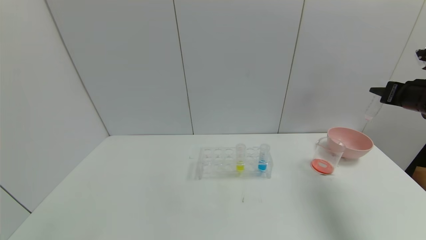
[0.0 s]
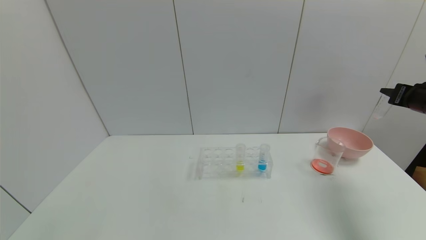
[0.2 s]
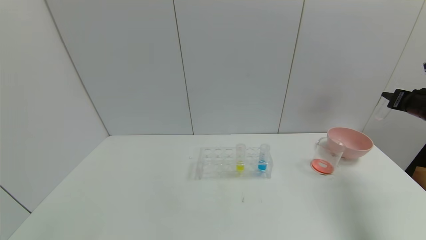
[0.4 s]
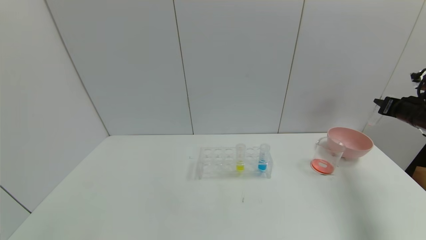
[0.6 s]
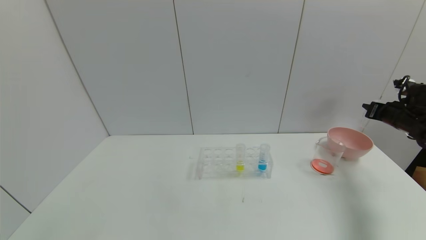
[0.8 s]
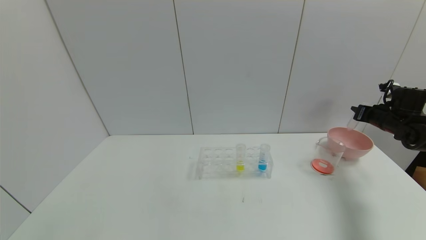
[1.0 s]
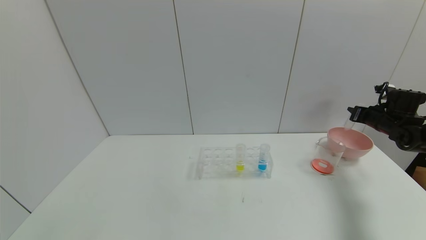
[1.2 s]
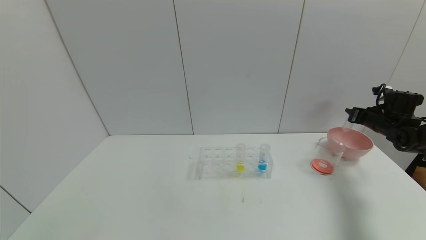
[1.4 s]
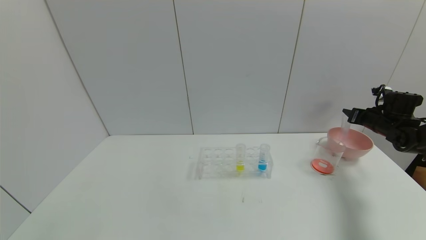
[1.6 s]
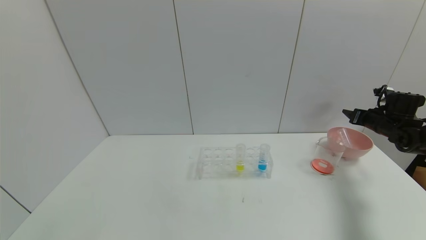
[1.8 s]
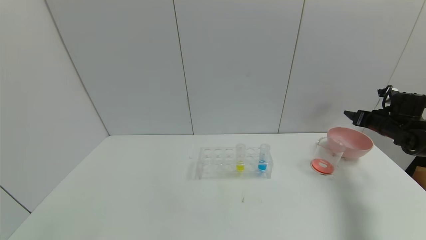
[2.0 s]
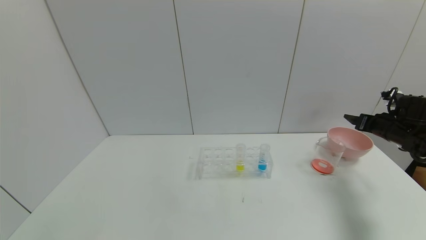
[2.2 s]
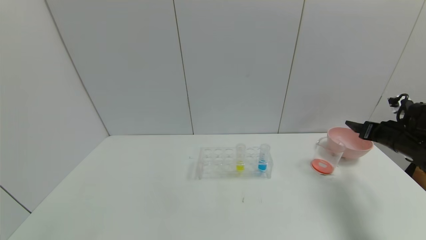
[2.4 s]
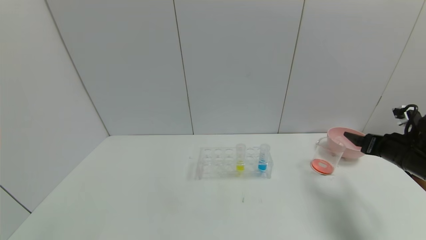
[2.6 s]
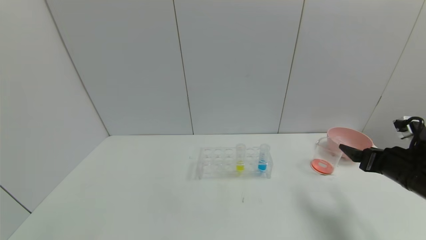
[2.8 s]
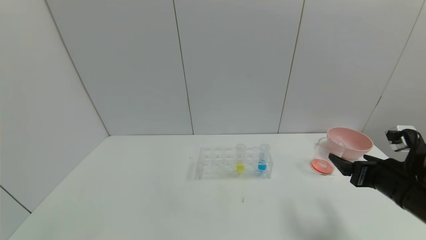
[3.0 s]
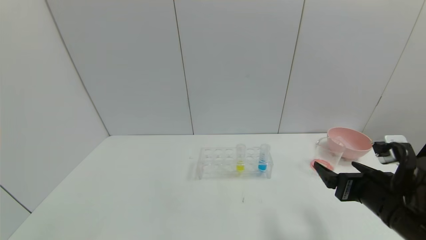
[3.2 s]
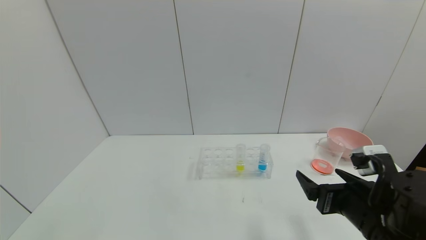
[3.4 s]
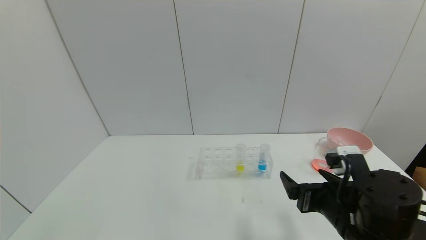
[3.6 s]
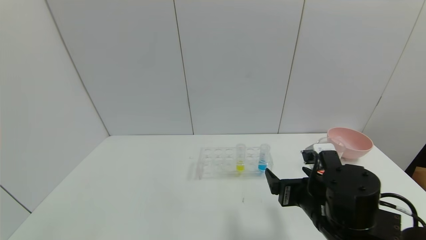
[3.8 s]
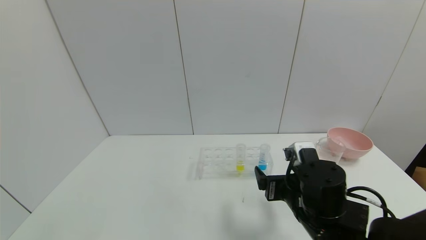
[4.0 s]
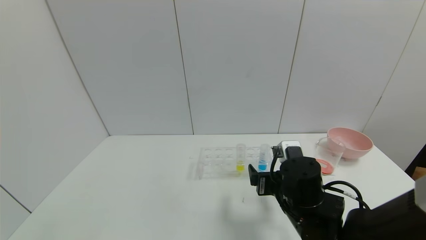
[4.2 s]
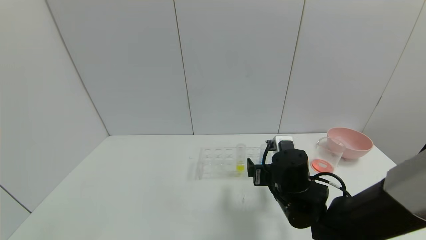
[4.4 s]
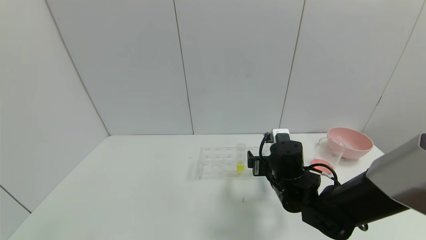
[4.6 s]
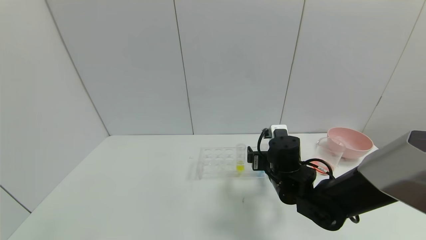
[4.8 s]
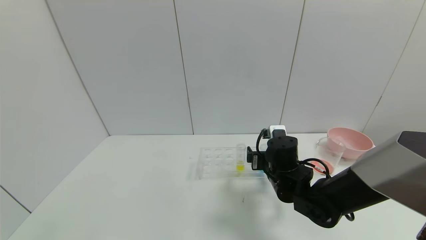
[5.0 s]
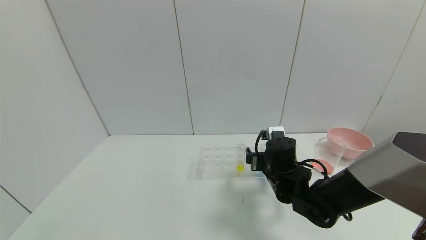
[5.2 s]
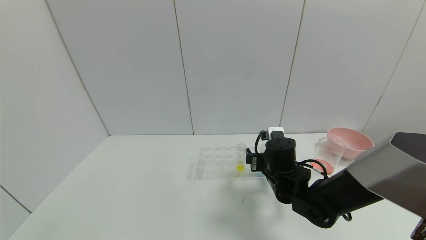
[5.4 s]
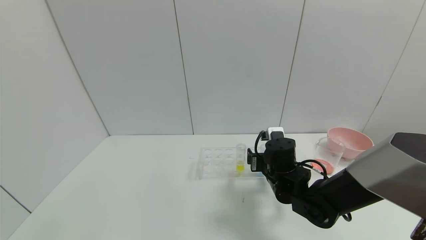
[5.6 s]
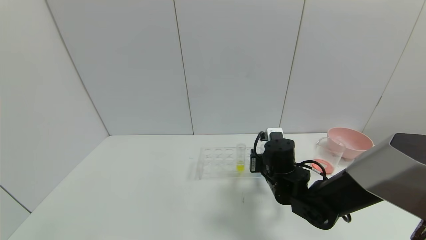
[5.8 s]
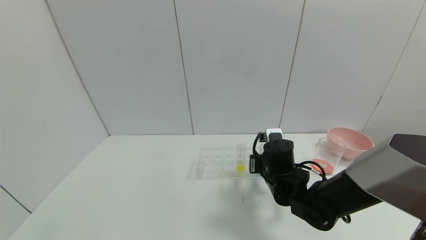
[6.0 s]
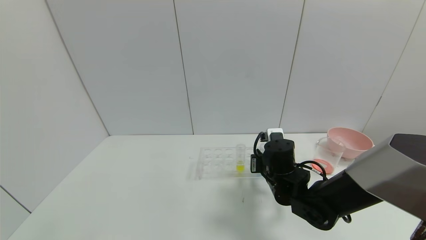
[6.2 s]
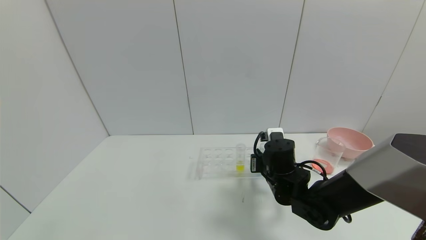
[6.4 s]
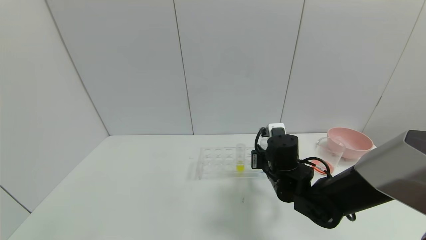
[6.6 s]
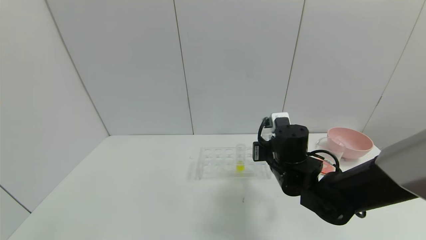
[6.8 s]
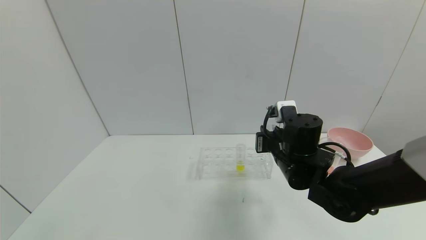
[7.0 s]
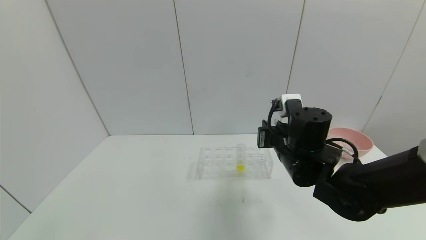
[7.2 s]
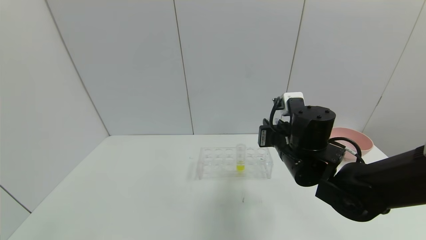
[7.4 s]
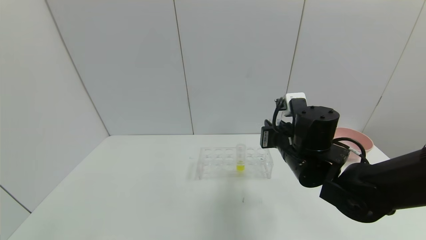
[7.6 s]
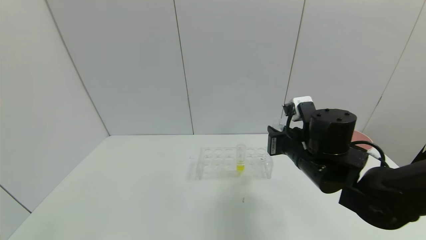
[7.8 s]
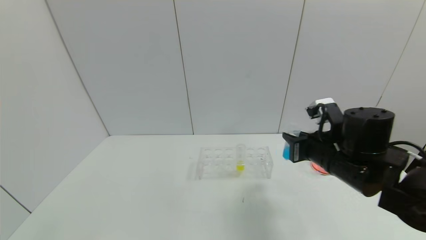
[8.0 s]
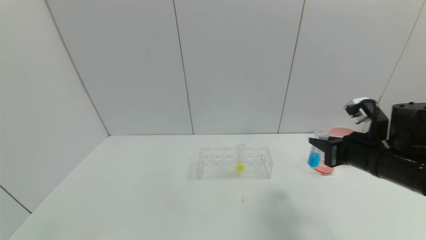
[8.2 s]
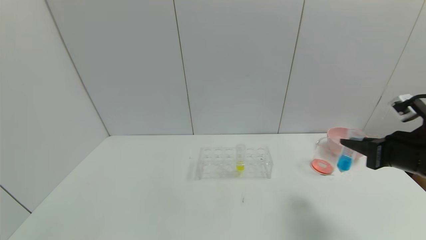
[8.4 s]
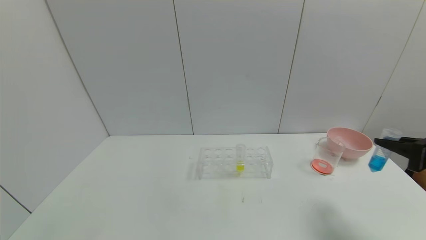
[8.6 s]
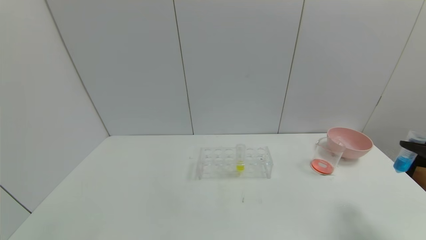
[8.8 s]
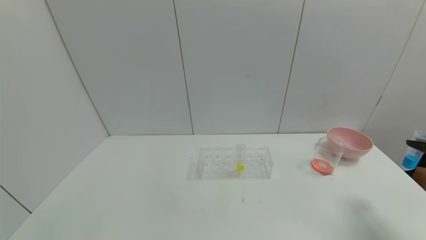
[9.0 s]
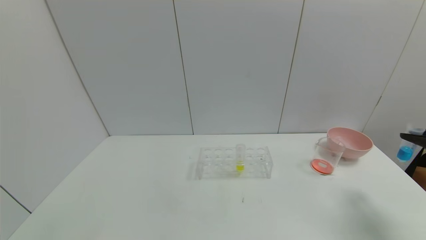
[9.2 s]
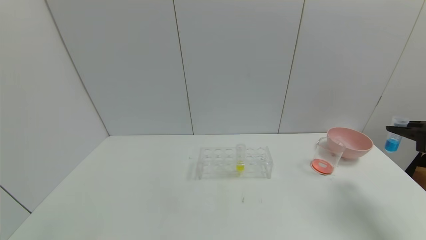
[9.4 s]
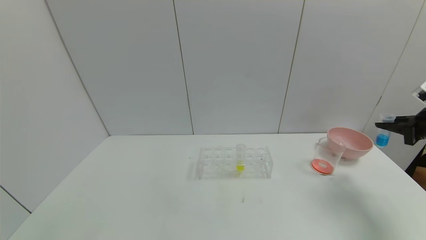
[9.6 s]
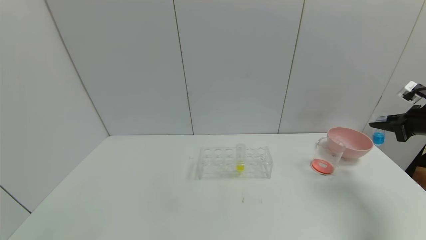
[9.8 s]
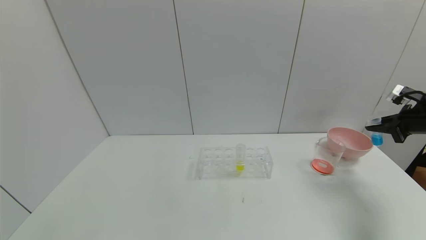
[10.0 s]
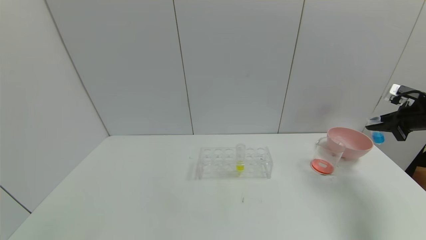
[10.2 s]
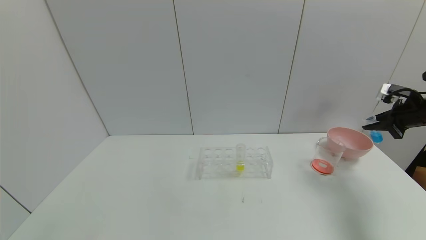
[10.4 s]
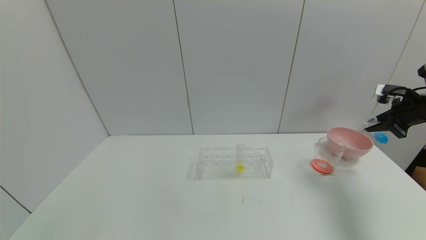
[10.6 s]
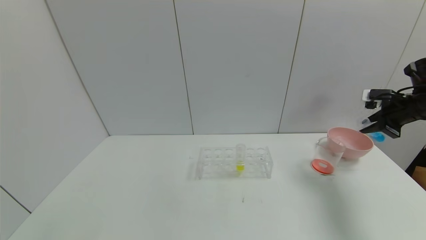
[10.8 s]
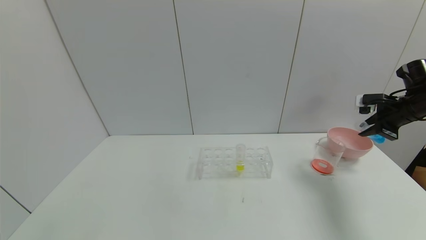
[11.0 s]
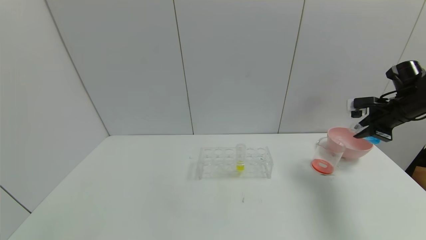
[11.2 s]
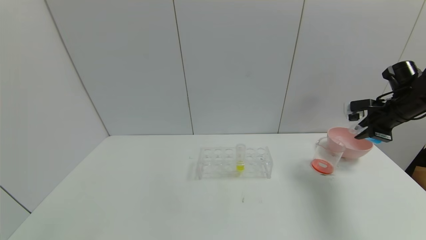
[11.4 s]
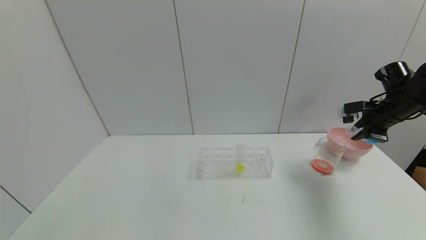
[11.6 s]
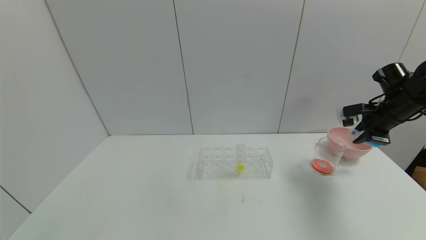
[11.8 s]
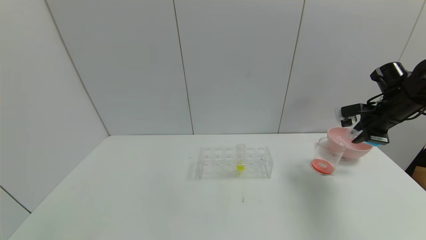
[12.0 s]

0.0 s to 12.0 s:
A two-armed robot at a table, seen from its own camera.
Task of the whole recording: pick up the test tube with red pigment and the test tube with blue pigment by grippers and pour them into the container.
Step, 0.0 to 2.2 s: Place the test tube into the bowl with the right gripper.
Step, 2.4 to 6.4 s: Grasp the blue reagent with the right gripper.
0.0 to 1.6 s: The right gripper is displaced downward and forward by about 15 cm, and opens.
1.6 to 3.0 s: The right gripper goes some 30 cm backward and to the left, and opens its fingers.
3.0 to 4.4 s: The right gripper shifts some 20 cm to the left.
4.4 to 6.0 s: The right gripper moves roughly 5 cm, and closes.
6.0 to 7.6 s: The right gripper goes approximately 10 cm upward.
7.6 to 9.0 s: The right gripper is displaced to the right by about 35 cm.
9.0 to 10.4 s: The right gripper heads forward, covering some 15 cm.
10.4 to 12.0 s: The right gripper shifts roughly 10 cm to the left.

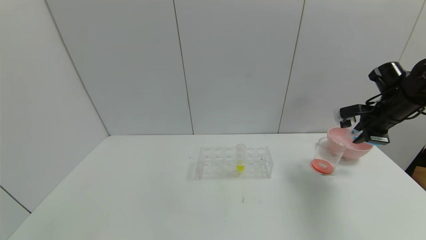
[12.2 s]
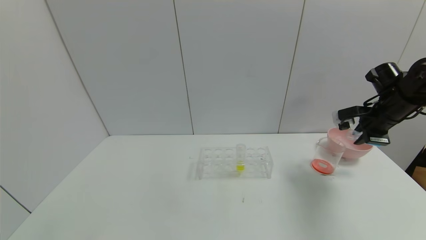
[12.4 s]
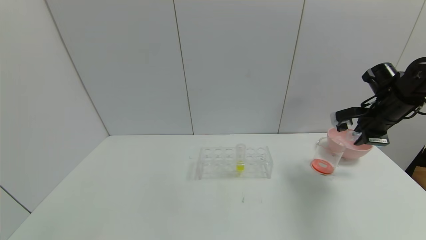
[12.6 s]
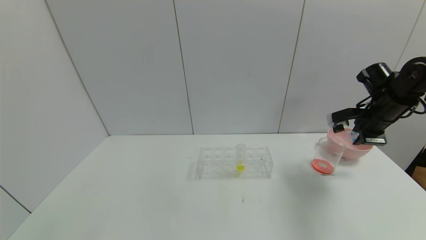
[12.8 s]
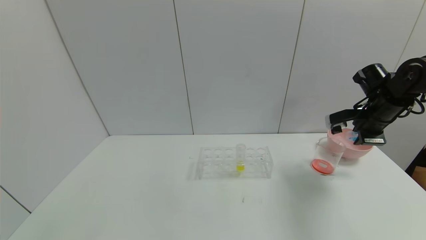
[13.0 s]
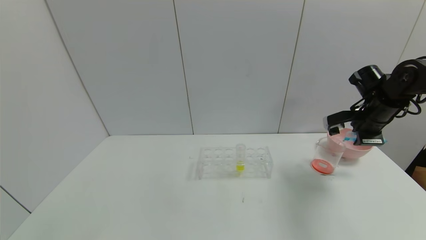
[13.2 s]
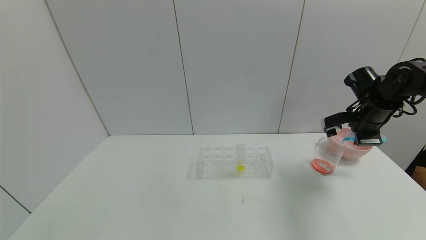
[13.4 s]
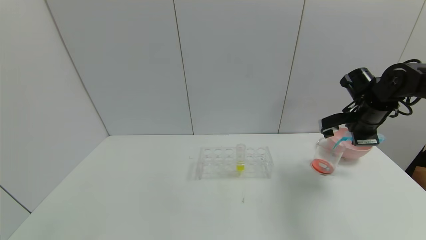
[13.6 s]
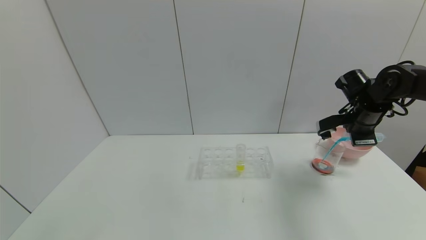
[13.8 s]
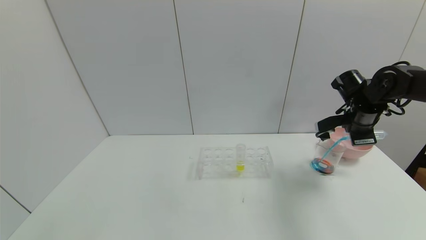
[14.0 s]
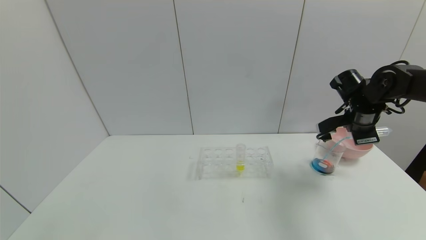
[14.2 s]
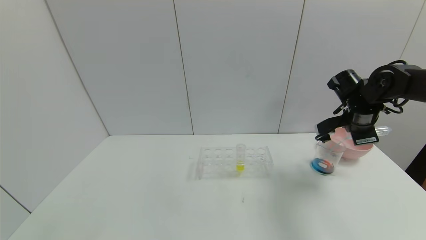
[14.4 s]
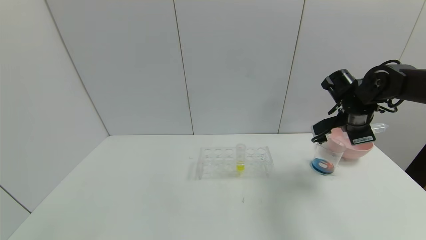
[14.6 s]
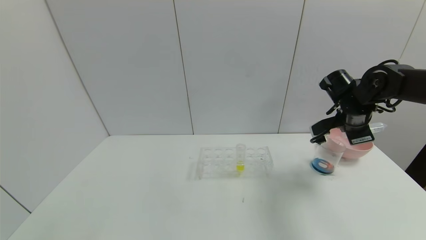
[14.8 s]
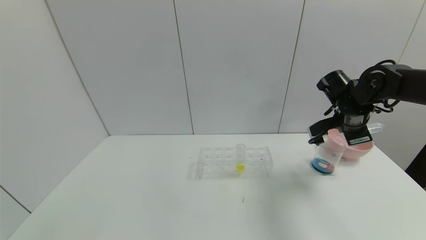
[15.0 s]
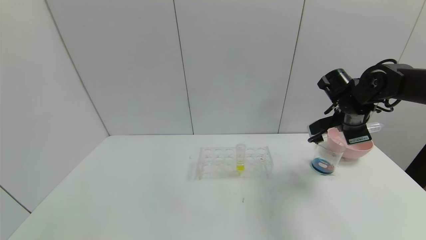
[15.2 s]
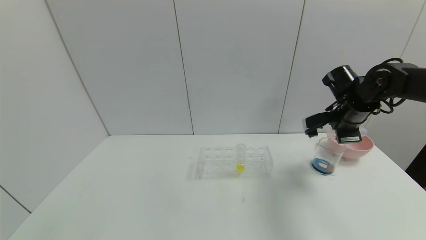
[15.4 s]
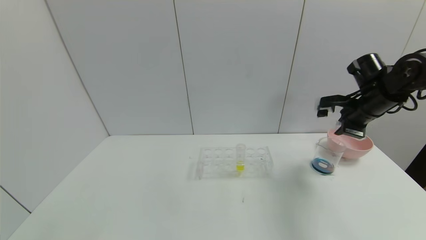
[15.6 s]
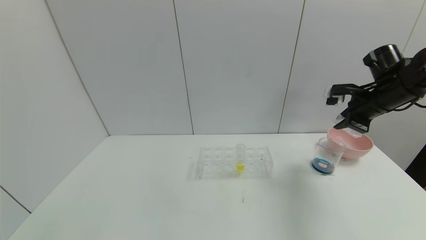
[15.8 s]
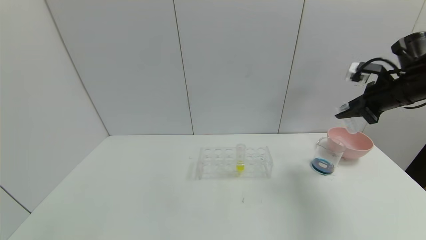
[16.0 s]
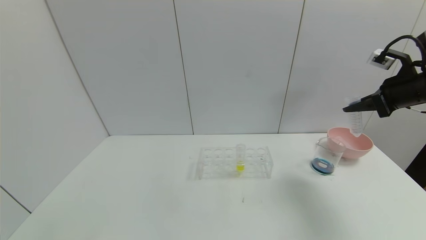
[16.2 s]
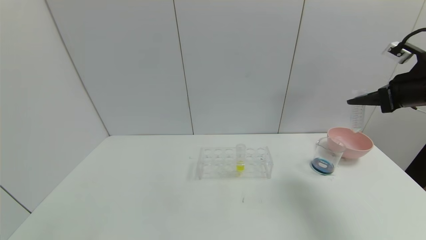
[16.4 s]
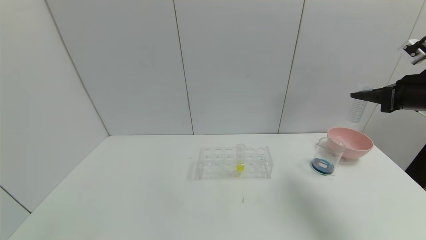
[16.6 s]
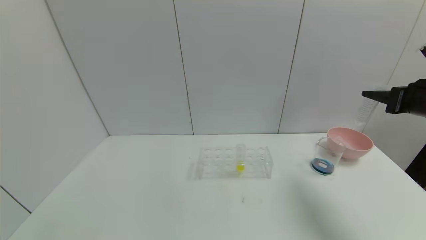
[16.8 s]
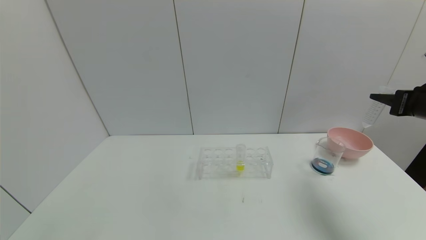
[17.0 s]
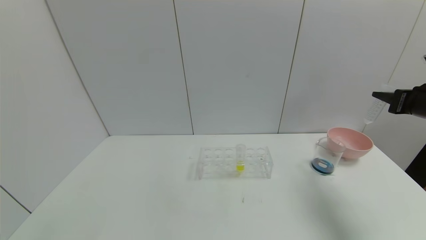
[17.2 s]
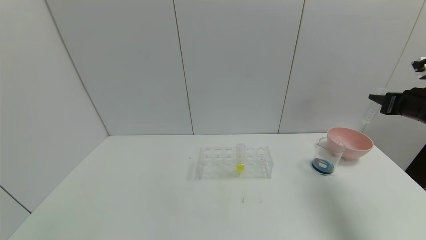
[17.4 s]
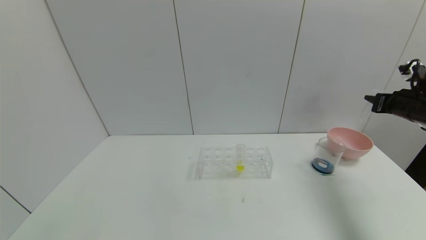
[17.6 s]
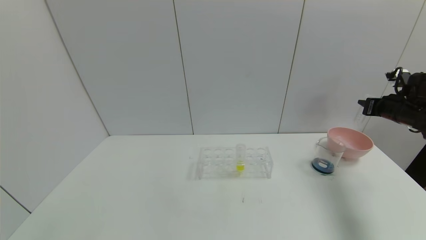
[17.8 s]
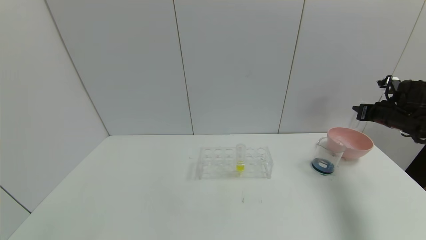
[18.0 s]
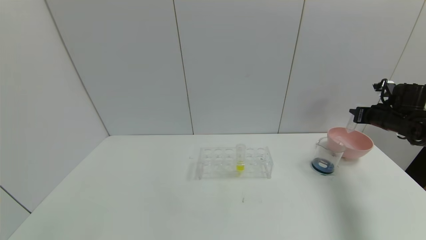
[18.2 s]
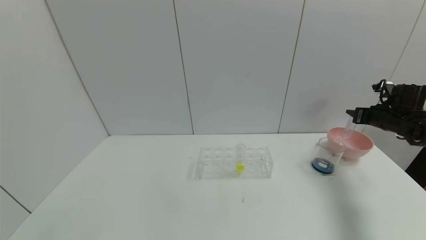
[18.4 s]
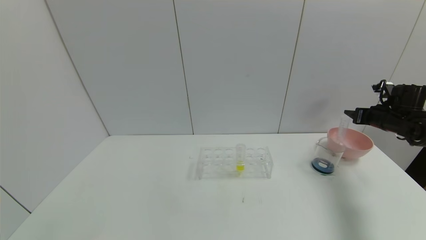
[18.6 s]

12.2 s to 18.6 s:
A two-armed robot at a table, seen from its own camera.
Task of the whole recording: pick up the test tube with red pigment and the test tube with blue pigment by grippers and pour them into the container.
Step, 12.2 to 14.6 s: Pour the blue reagent into the graduated cylinder with the right gripper.
12.2 to 13.8 s: The right gripper heads to the left, covering some 5 cm.
13.8 to 15.4 s: The grippers stay close to where they were, moving slightly.
15.4 to 17.0 s: The right gripper moves backward and to the right, about 15 cm.
17.0 to 18.6 s: The right gripper shifts about 15 cm forward and downward, and opens.
